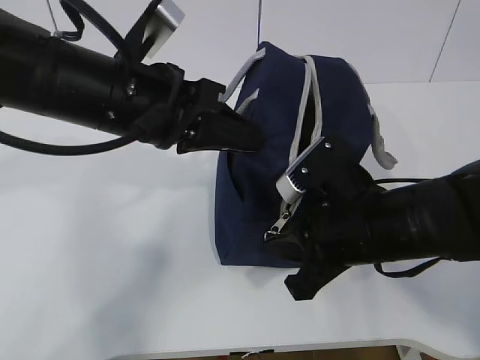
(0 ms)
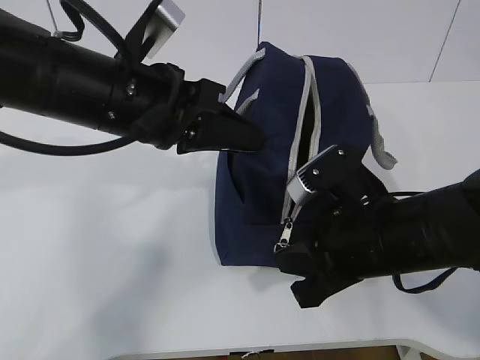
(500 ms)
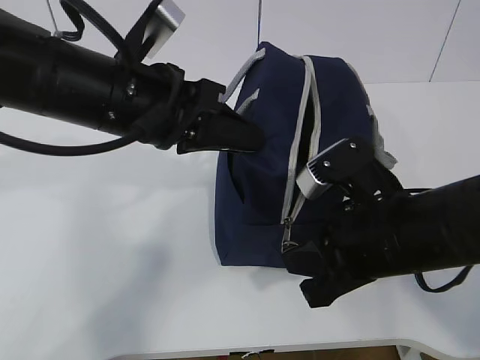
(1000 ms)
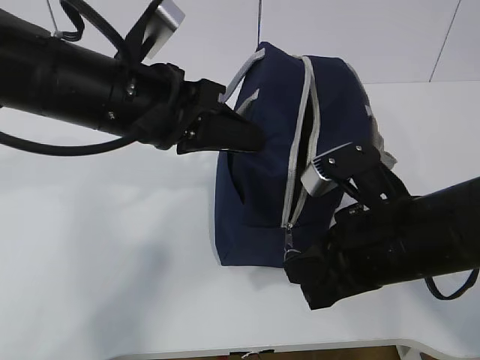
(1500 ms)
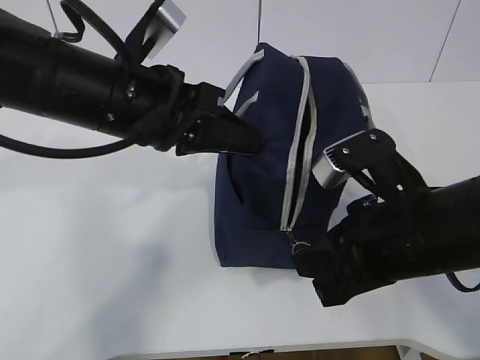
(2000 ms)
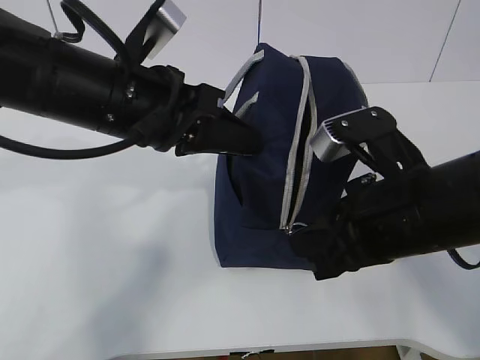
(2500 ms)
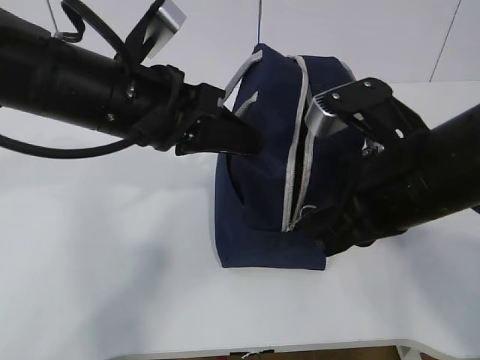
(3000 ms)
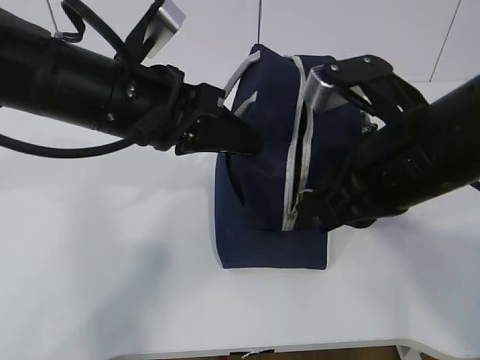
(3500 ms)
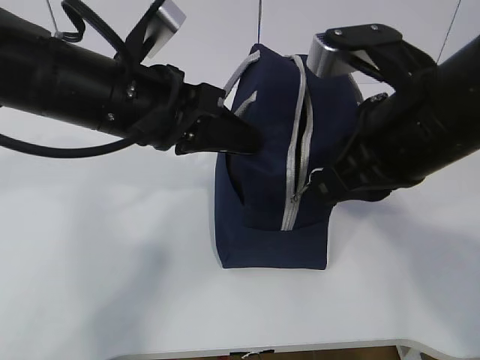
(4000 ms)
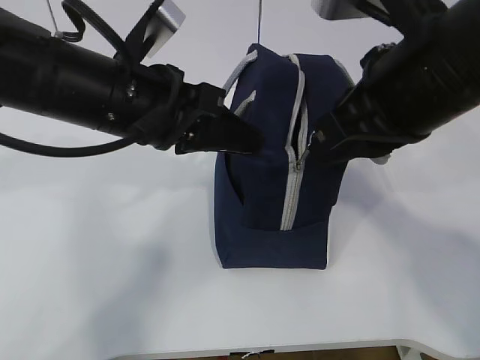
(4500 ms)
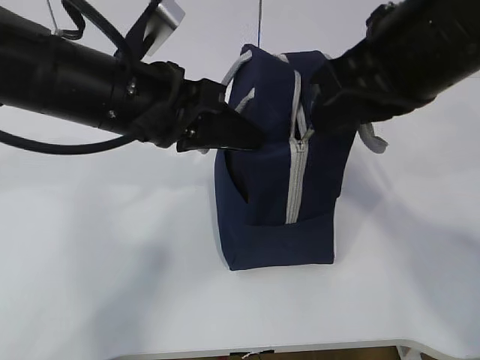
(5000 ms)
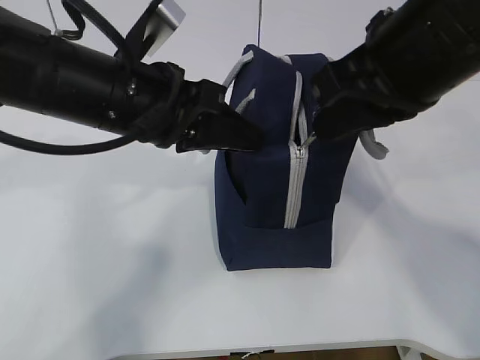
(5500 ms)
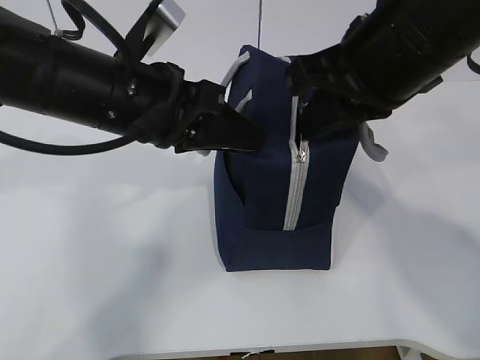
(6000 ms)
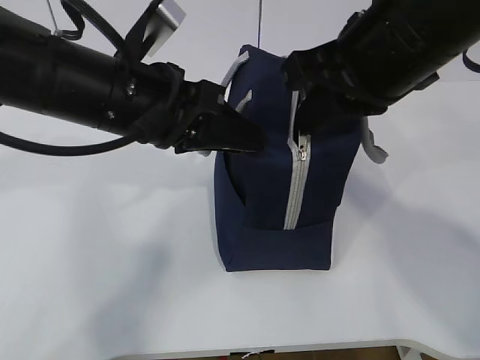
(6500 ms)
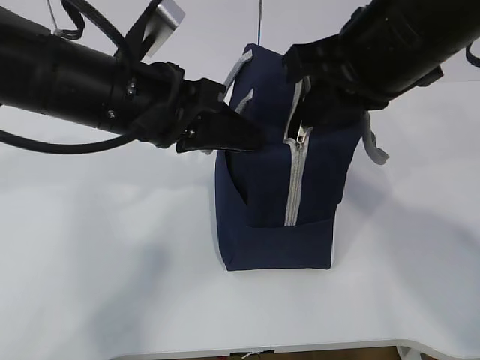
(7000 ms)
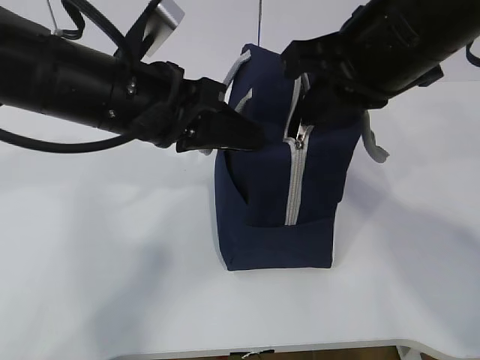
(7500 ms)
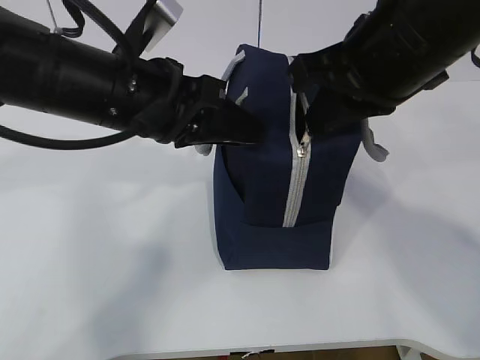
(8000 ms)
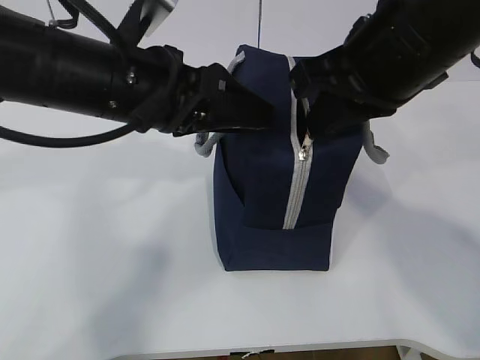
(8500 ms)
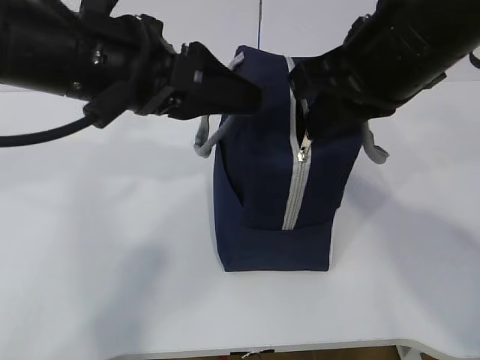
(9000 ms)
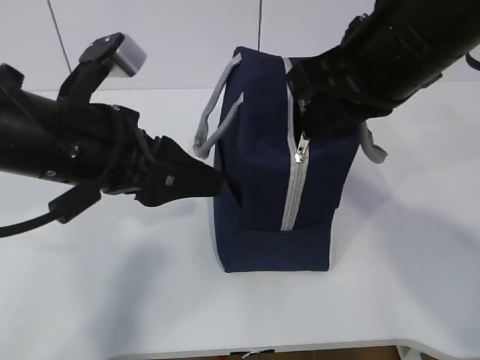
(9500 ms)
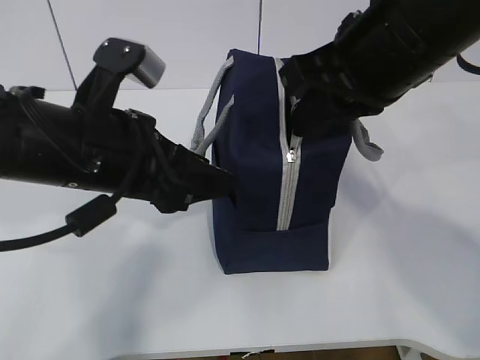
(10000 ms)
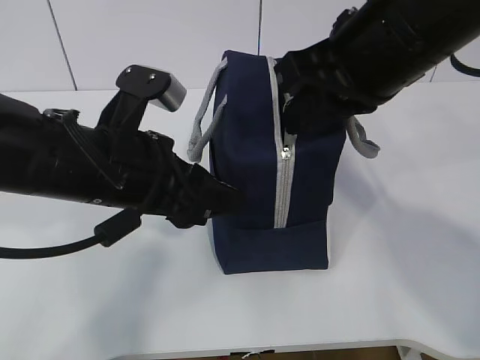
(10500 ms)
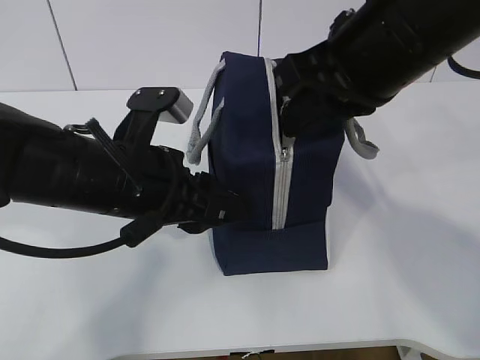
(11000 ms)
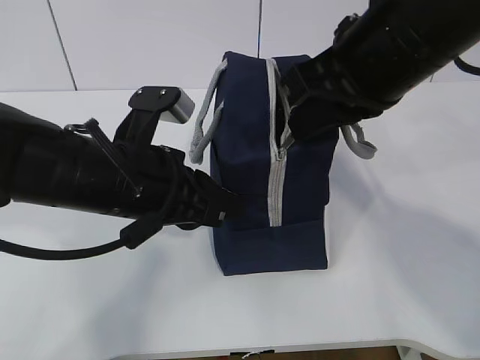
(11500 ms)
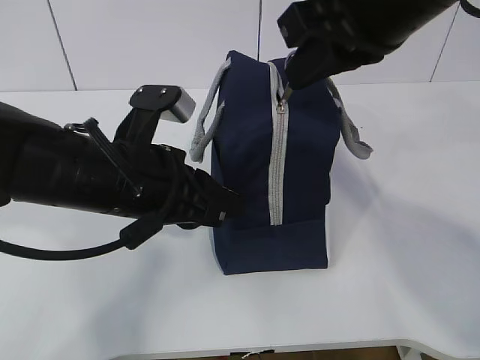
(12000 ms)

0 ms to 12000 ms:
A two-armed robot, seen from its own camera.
0 ms to 2000 ms: The right gripper moves some 5 cm.
2000 ms to 4000 ms: The right gripper moves upward, roughly 10 cm.
4000 ms to 6000 ms: The right gripper ends up some 5 cm from where it was.
6000 ms to 8000 ms: The grippers move only a little.
8000 ms to 10000 ms: The left gripper ends up about 5 cm from where it was, and opens up.
10000 ms to 12000 ms: The left gripper closes its fingers.

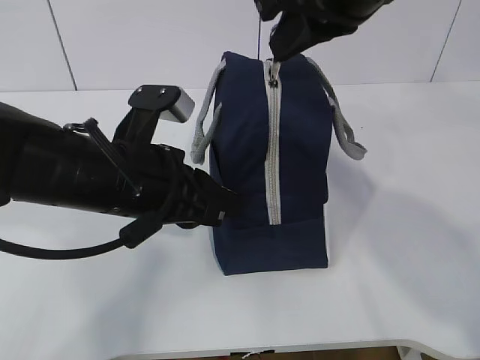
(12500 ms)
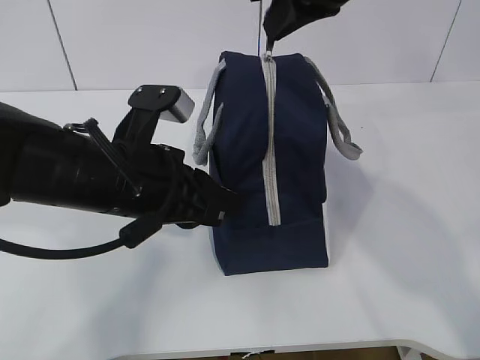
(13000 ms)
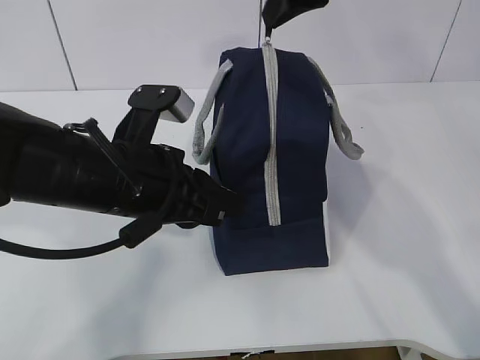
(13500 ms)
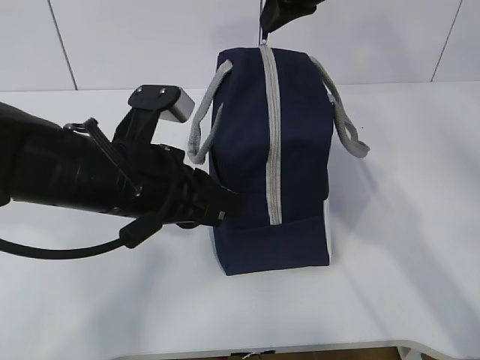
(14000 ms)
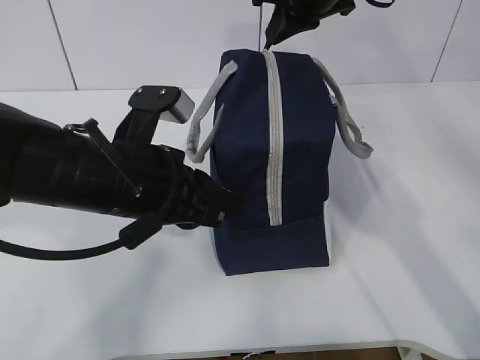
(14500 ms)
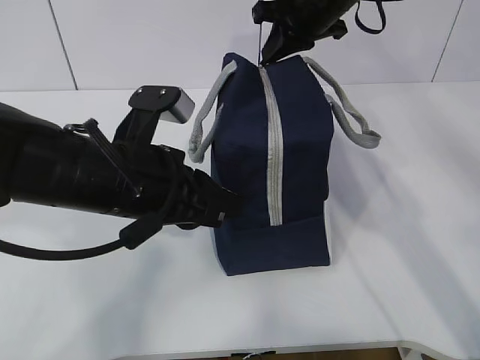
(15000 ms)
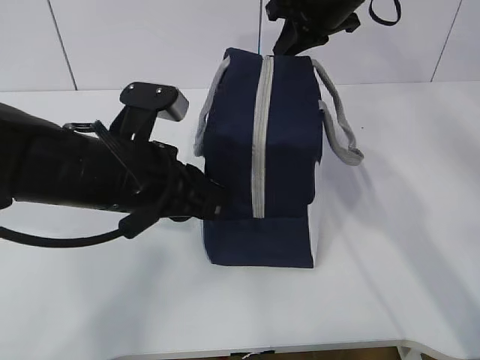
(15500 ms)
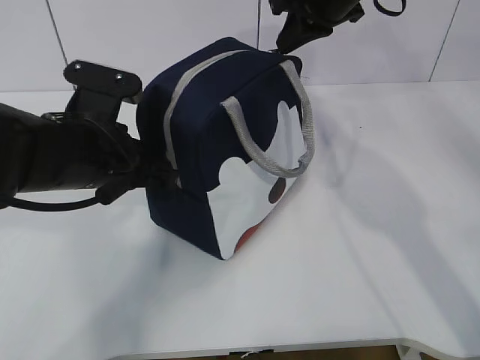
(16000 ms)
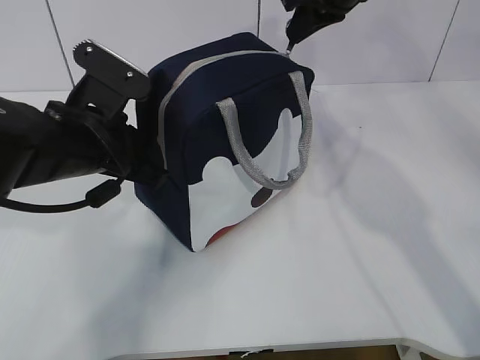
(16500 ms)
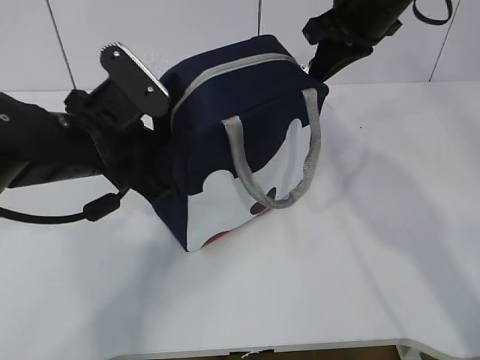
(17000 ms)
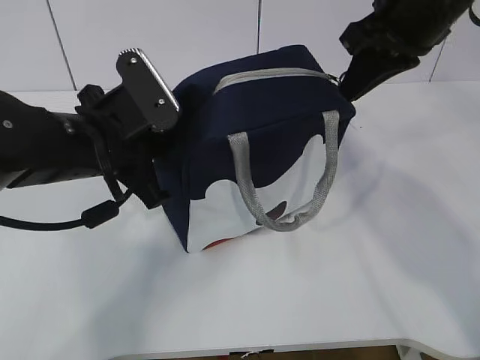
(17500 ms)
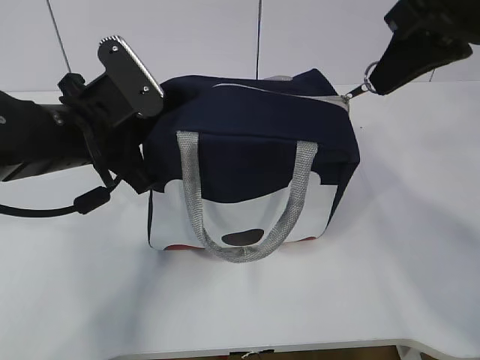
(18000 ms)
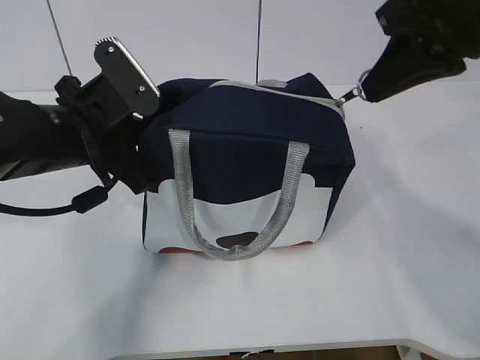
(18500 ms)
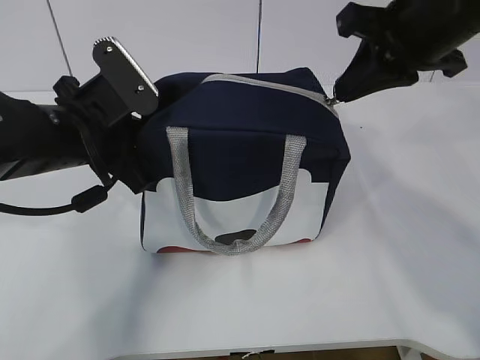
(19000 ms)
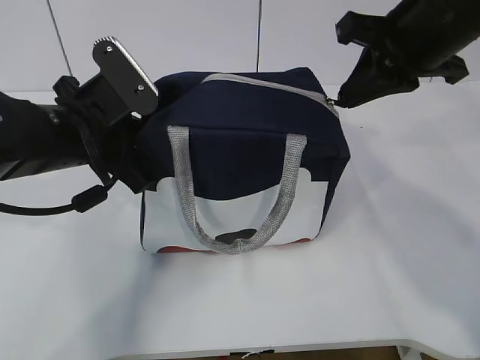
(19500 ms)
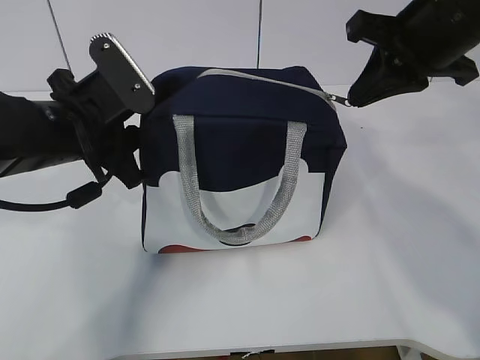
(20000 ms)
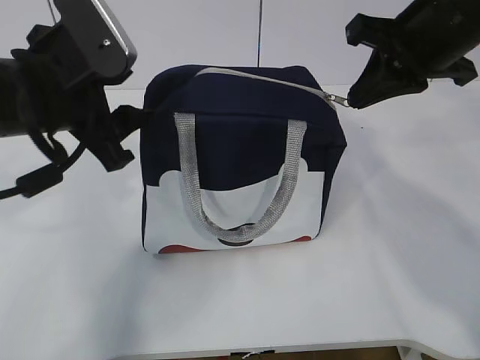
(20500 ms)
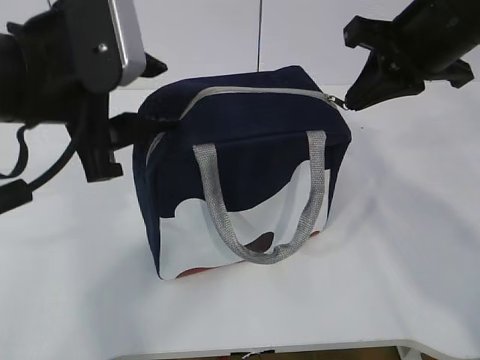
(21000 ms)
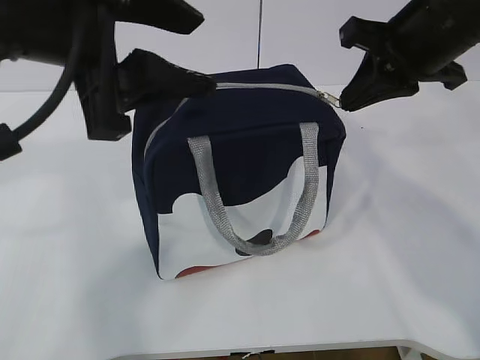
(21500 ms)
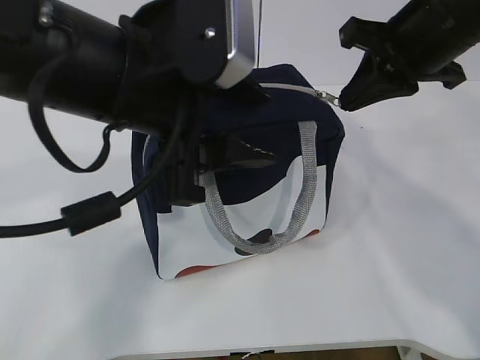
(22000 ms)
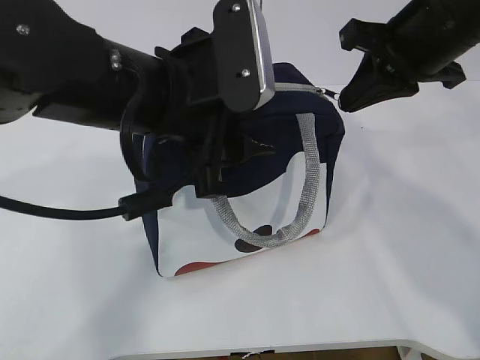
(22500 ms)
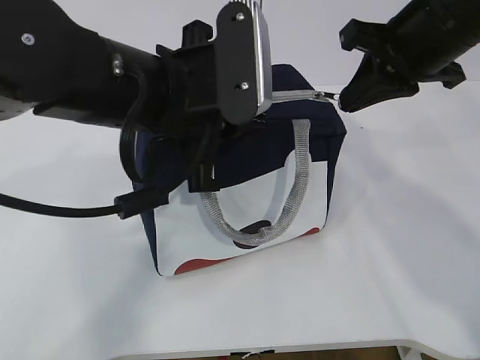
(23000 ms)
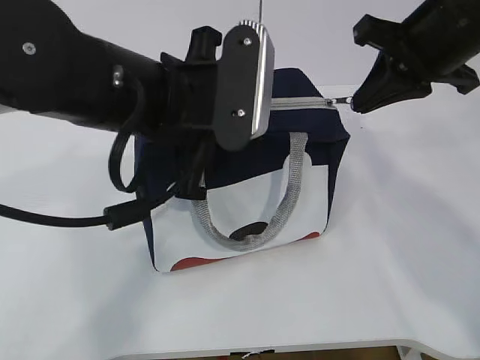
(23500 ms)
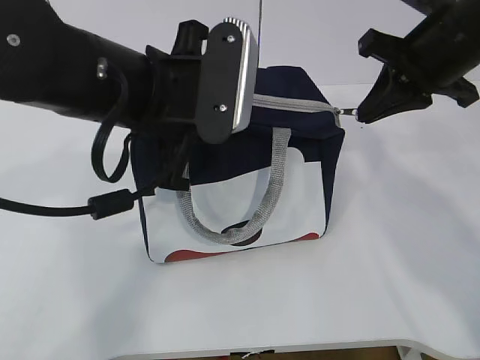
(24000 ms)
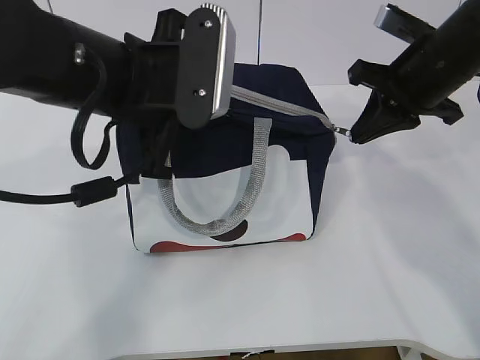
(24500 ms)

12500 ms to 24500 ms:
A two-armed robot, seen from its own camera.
12500 ms to 14500 ms: The right gripper goes roughly 15 cm forward.
14500 ms to 16500 ms: The left gripper shifts by roughly 5 cm.
16500 ms to 18500 ms: The right gripper moves backward, about 20 cm.
18500 ms to 20500 ms: The right gripper changes place by roughly 5 cm, while the left gripper is displaced upward by roughly 5 cm, and opens its fingers.
20500 ms to 22500 ms: The left gripper heads to the right, covering approximately 10 cm.
22500 ms to 24500 ms: The left gripper closes. Meanwhile the right gripper moves roughly 5 cm.

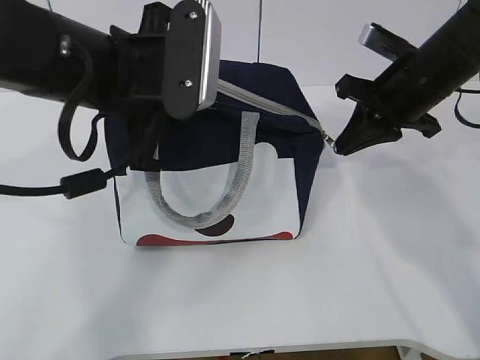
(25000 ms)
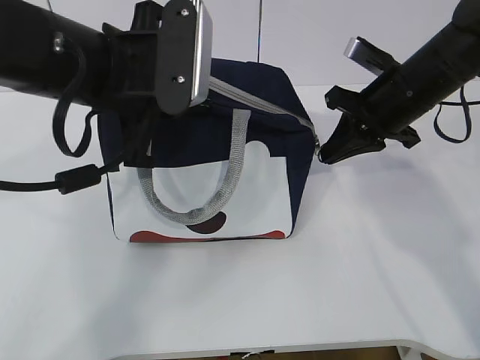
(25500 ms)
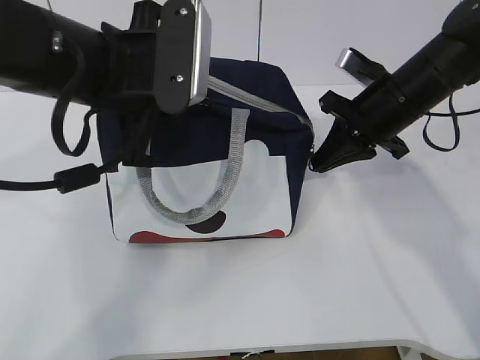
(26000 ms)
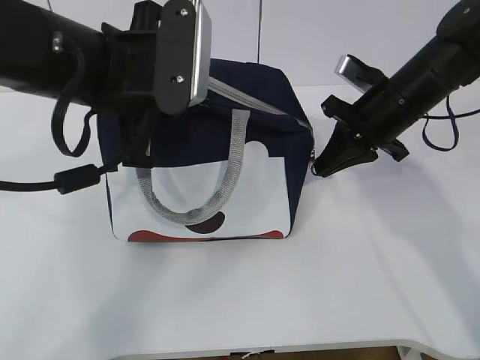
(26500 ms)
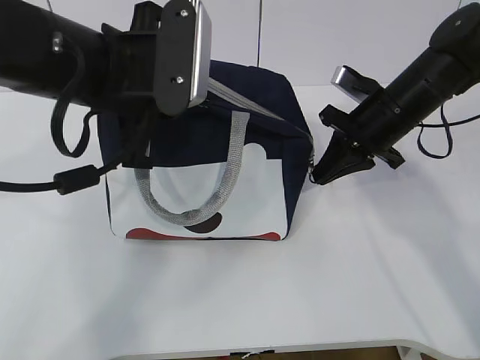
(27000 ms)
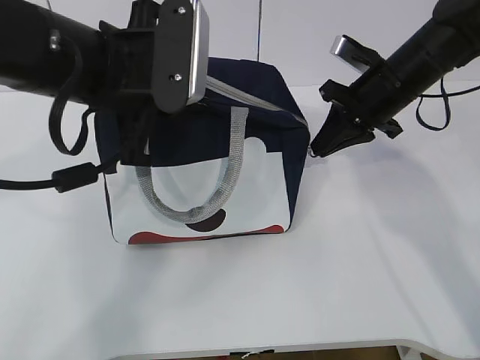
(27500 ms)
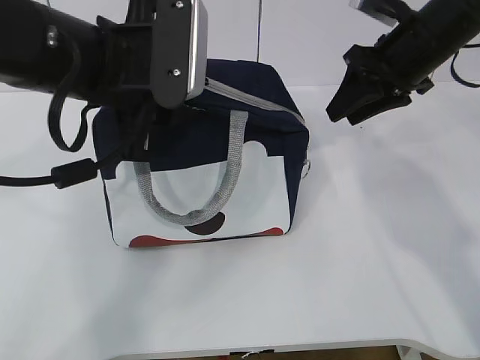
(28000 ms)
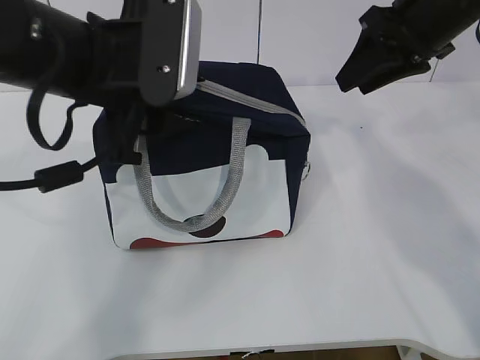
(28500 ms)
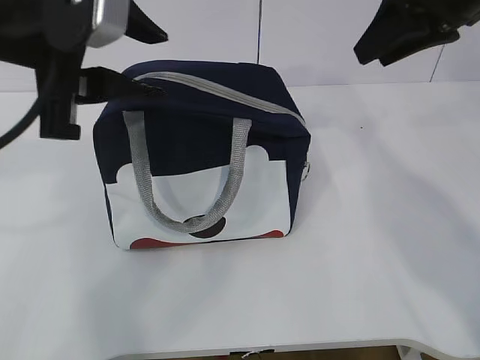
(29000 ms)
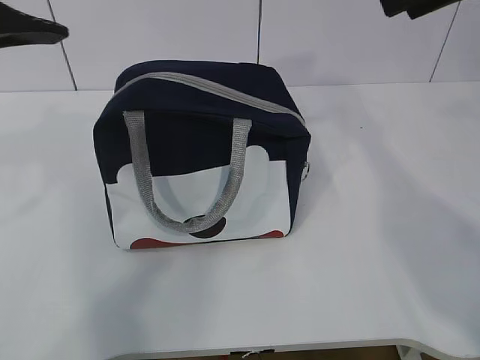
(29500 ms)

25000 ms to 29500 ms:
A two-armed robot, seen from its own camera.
25000 ms to 27000 ms: The right gripper goes roughly 5 cm downward.
27000 ms to 29500 ms: The right gripper moves upward and backward, about 25 cm, and opens, while the left gripper travels upward, to the left and backward by some 15 cm, and opens.
